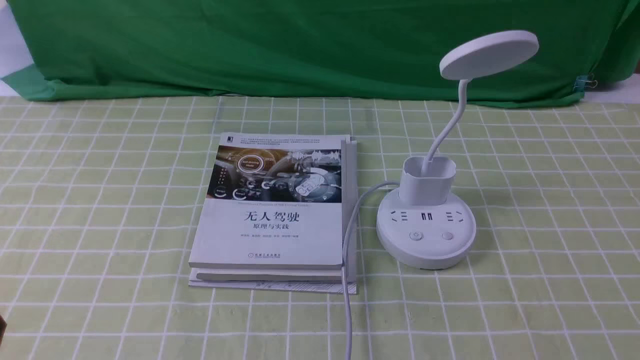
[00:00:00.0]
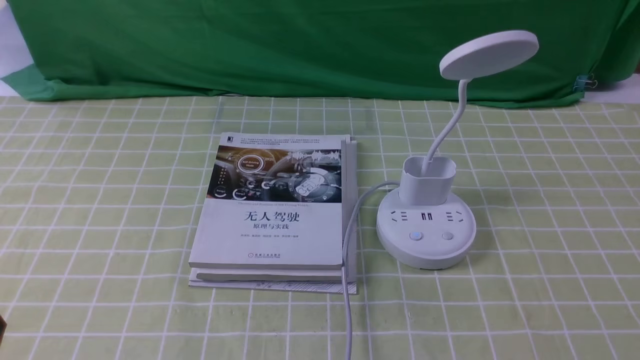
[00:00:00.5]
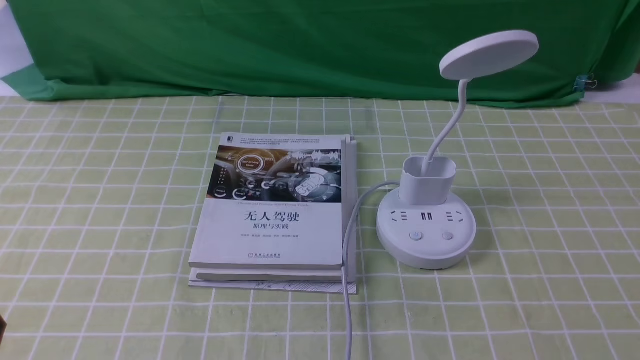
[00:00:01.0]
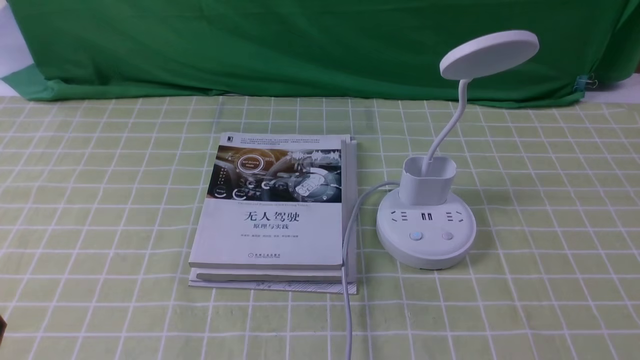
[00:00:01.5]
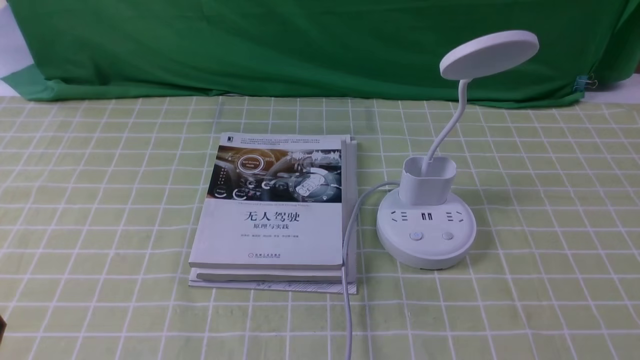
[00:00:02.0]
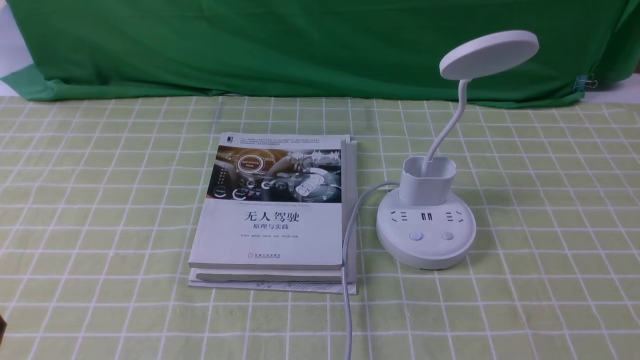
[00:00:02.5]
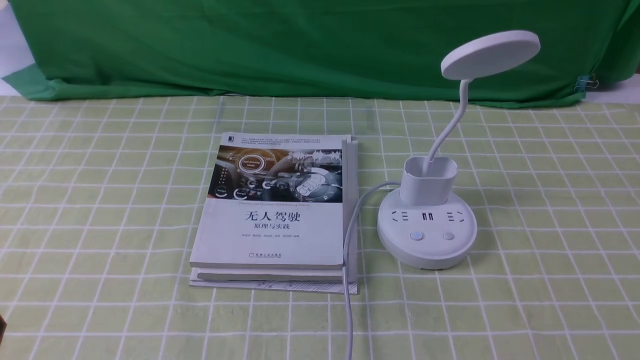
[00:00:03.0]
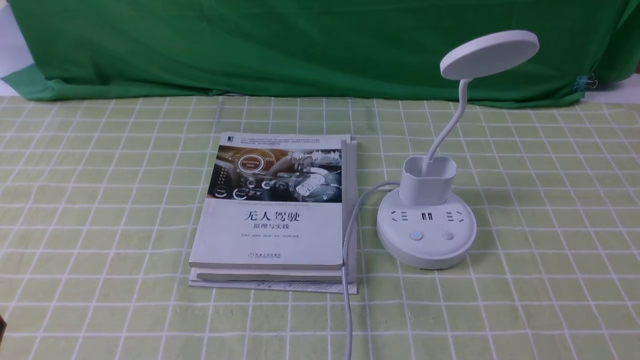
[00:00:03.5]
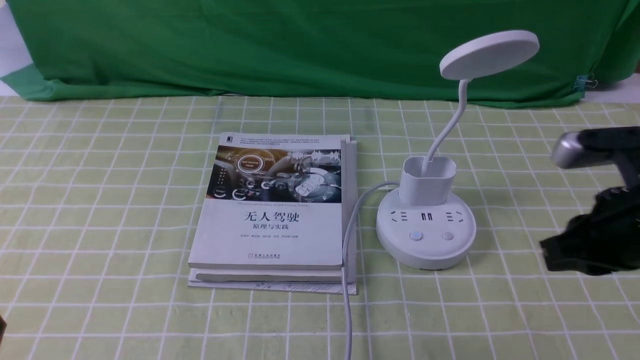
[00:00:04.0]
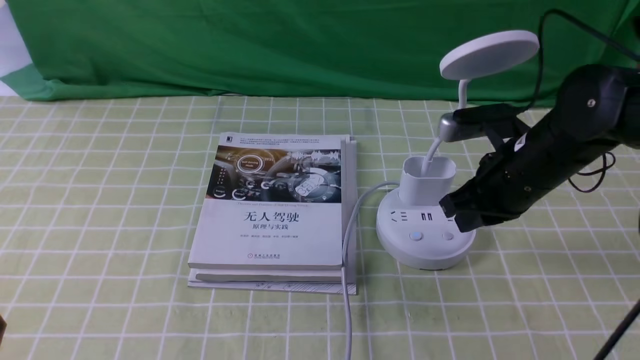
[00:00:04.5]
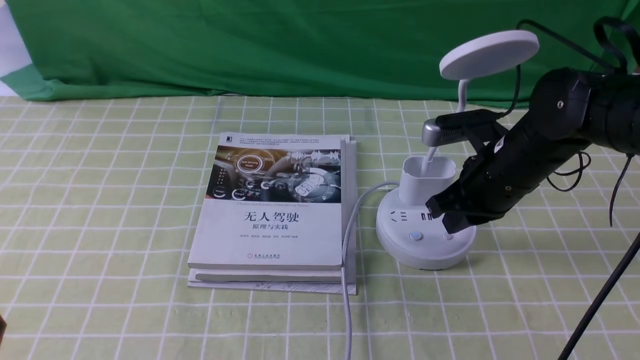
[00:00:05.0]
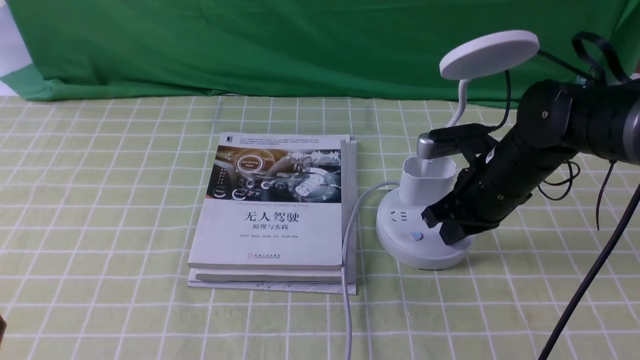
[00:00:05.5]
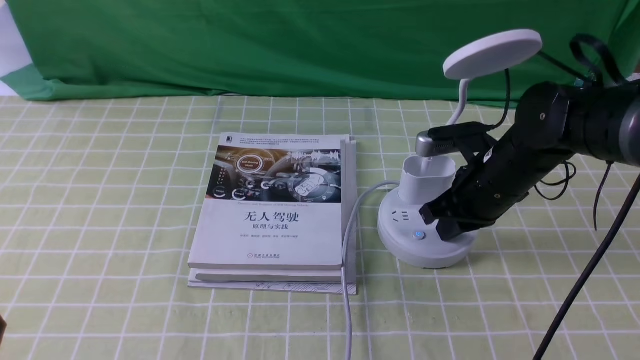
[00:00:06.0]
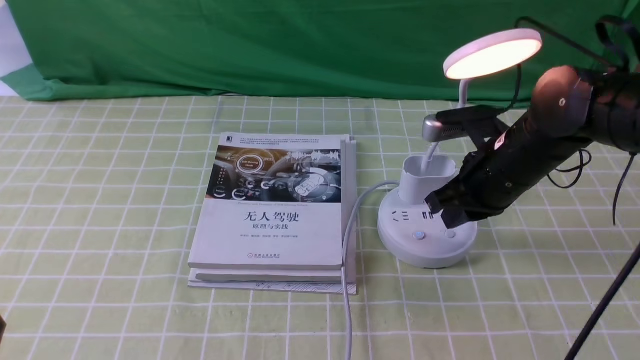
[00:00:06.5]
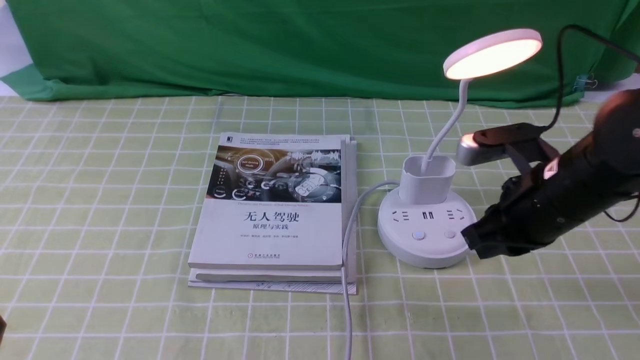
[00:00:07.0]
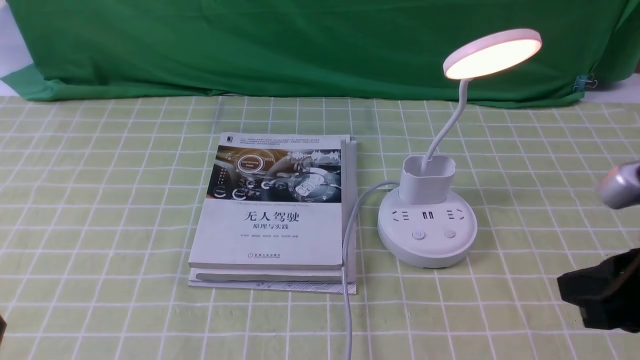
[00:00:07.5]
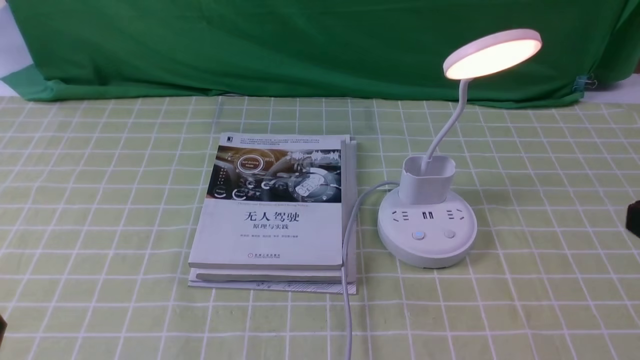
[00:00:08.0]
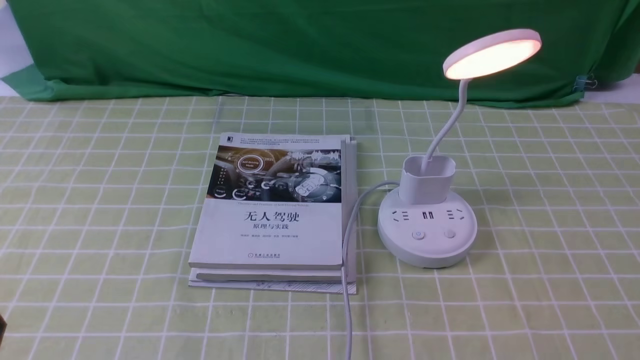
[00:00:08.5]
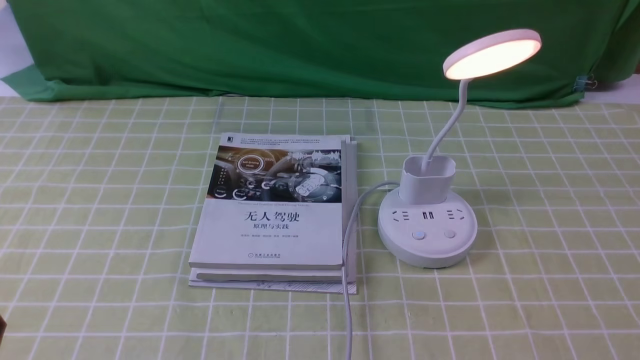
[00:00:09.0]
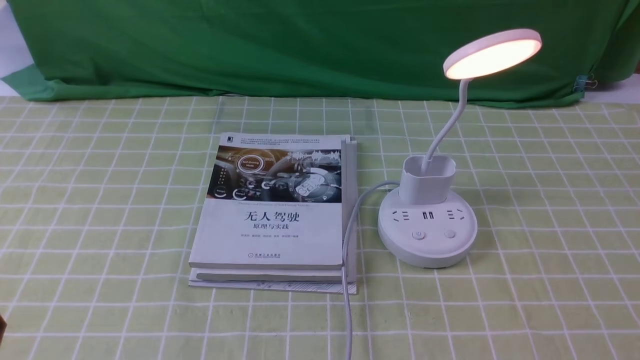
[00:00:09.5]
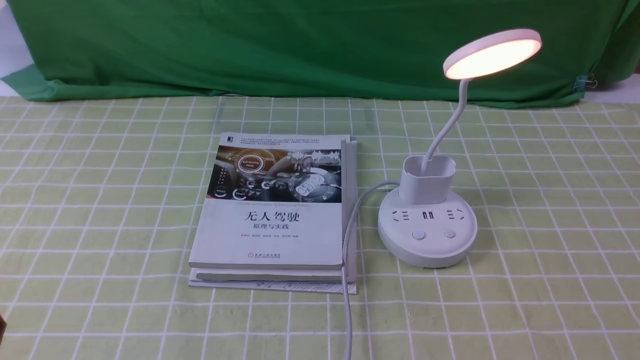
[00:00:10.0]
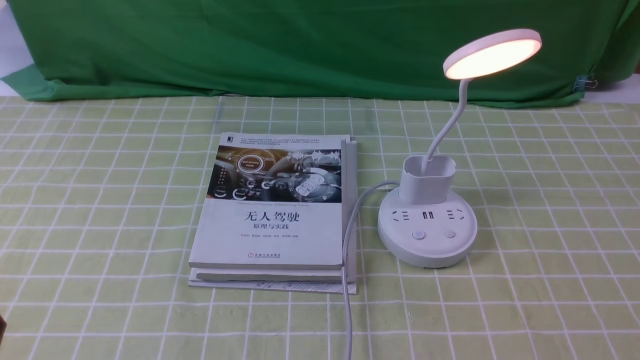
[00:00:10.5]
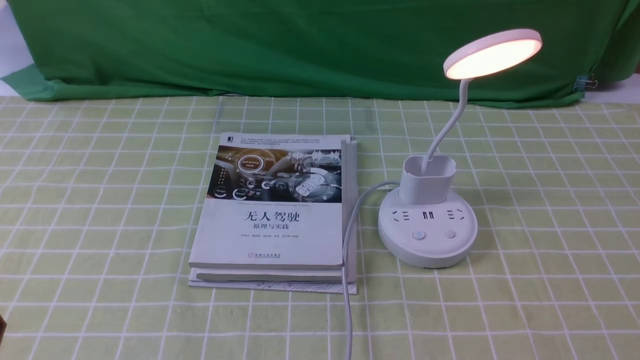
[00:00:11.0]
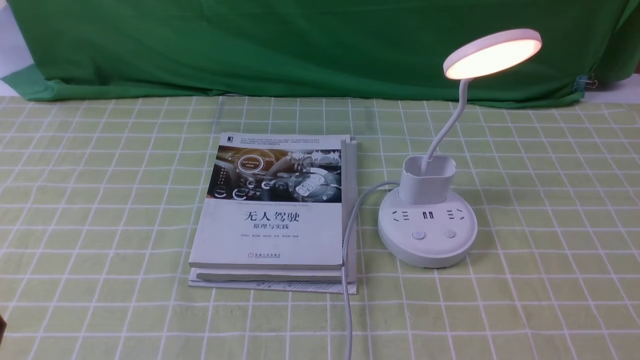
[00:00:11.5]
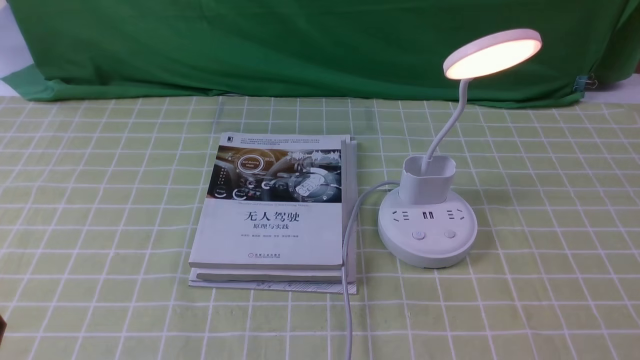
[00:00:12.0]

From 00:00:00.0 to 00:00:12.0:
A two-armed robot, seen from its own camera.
Step, from 00:00:00.0 to 00:00:06.5: use the right arm to press the button switch on the lamp holder.
From 00:00:00.0 to 00:00:02.0: Neither gripper changes place.
From 00:00:02.0 to 00:00:04.0: The right gripper heads forward and upward, covering roughly 20 cm, and closes.
From 00:00:04.0 to 00:00:06.0: The right gripper goes some 15 cm forward, downward and to the left.
From 00:00:06.0 to 00:00:08.0: The right gripper moves backward, upward and to the right, about 30 cm.
From 00:00:10.0 to 00:00:12.0: The two grippers keep their place.
